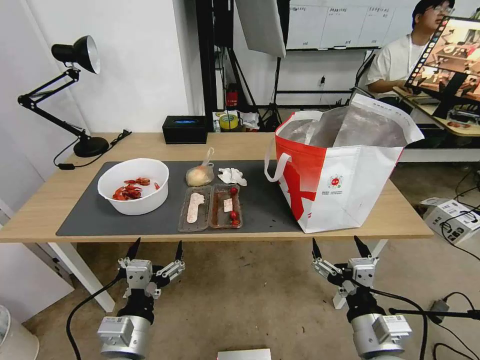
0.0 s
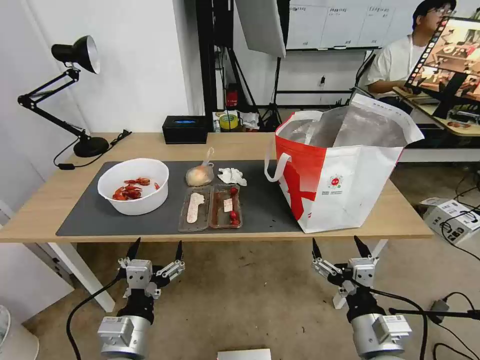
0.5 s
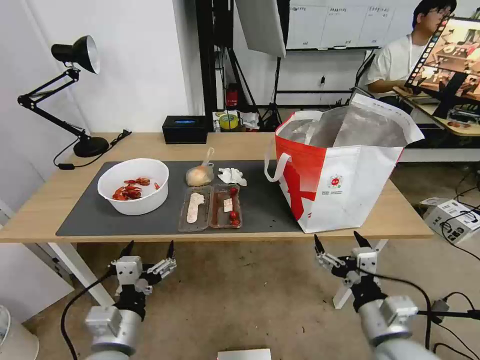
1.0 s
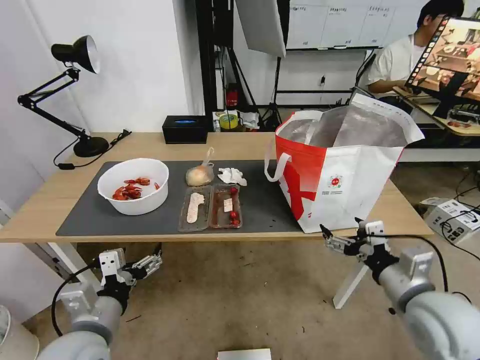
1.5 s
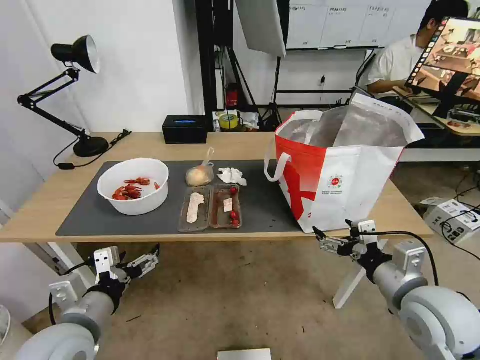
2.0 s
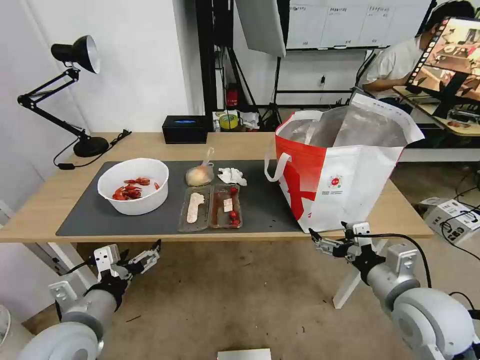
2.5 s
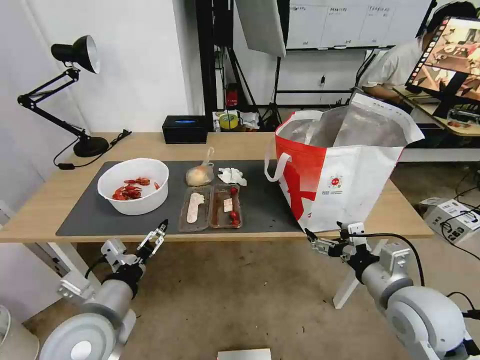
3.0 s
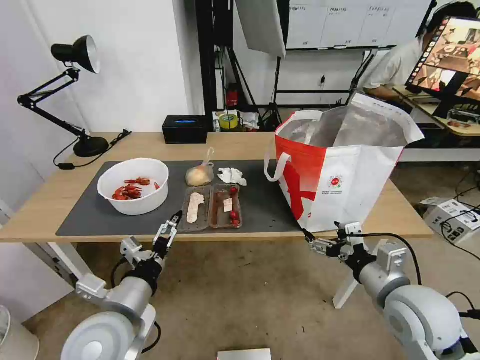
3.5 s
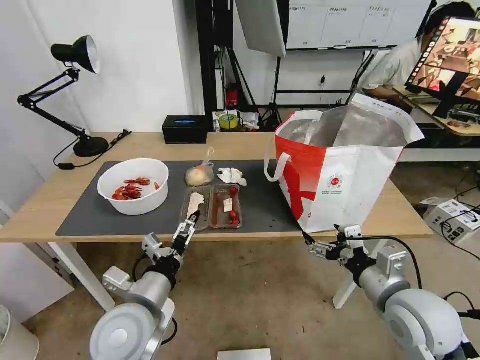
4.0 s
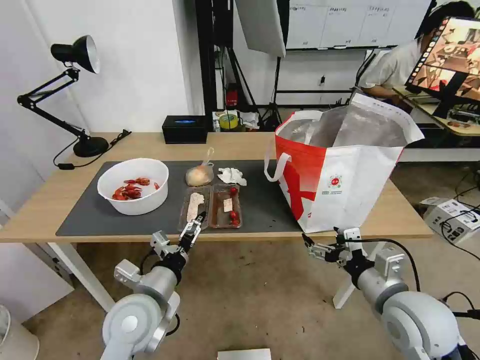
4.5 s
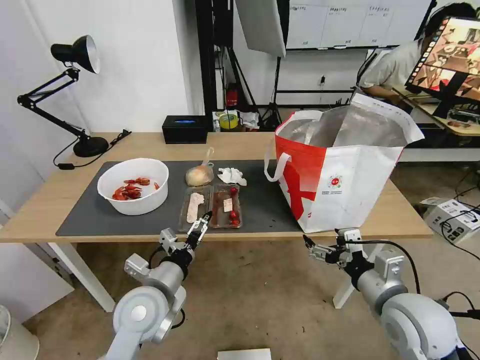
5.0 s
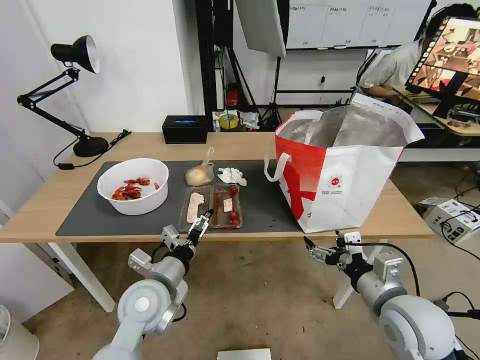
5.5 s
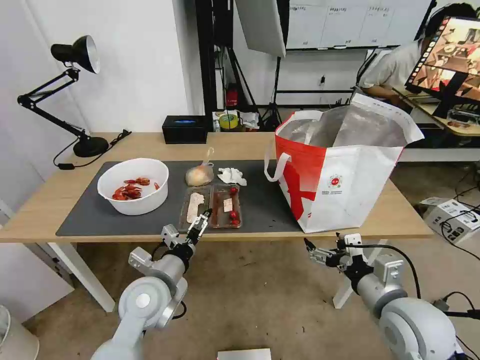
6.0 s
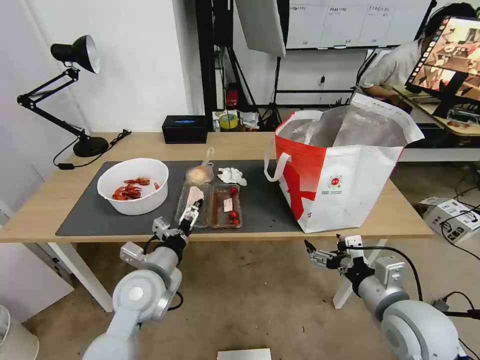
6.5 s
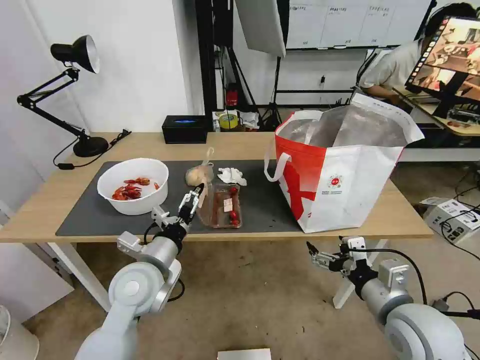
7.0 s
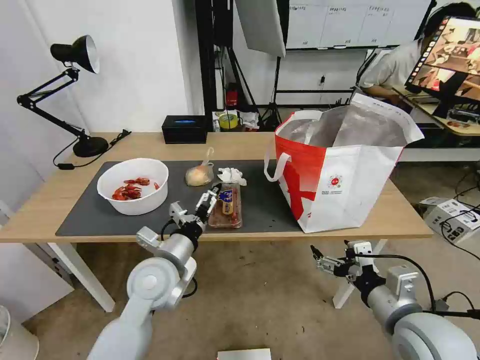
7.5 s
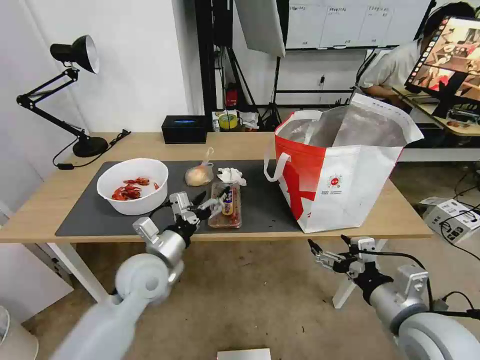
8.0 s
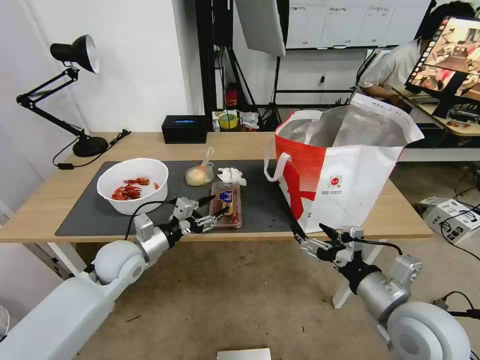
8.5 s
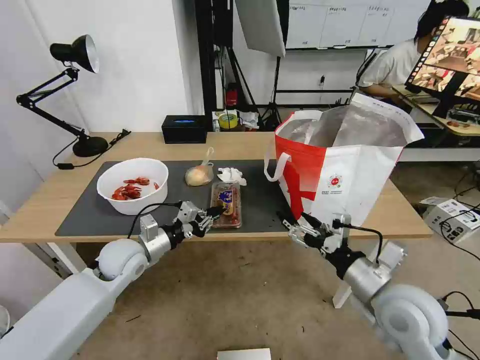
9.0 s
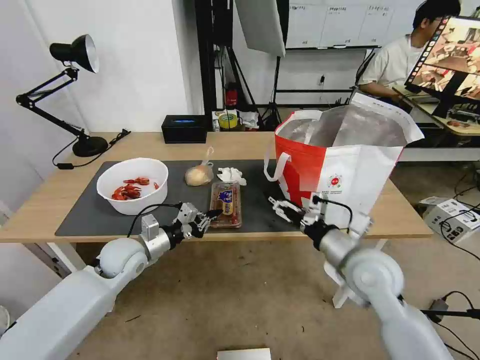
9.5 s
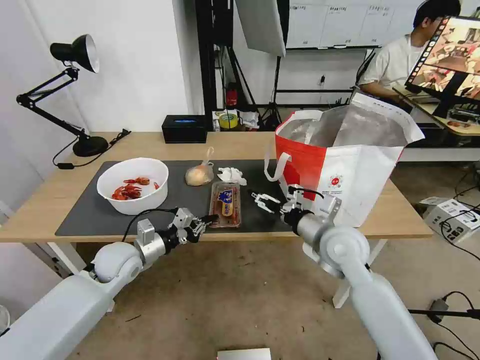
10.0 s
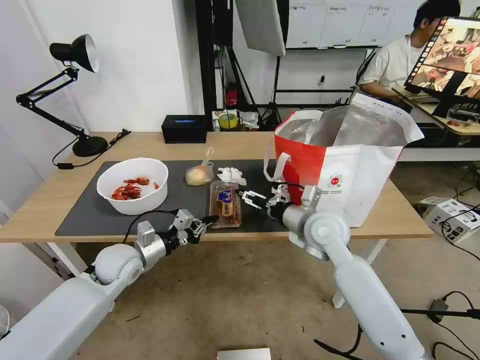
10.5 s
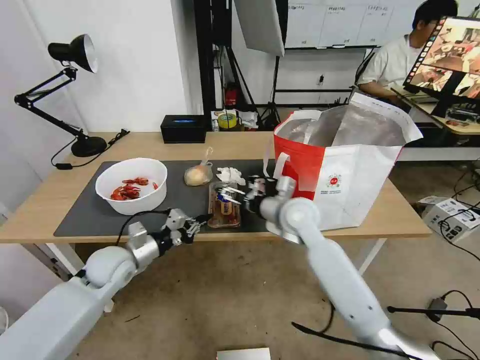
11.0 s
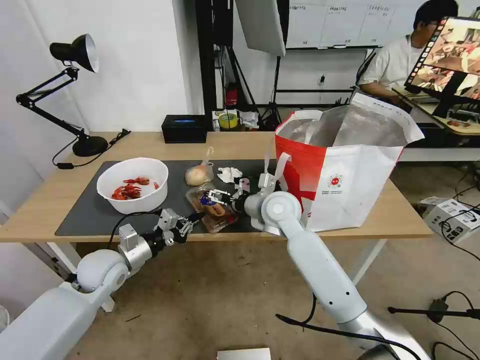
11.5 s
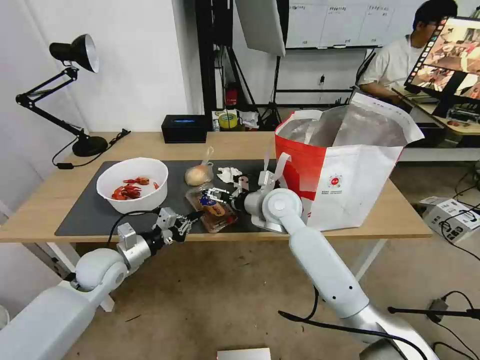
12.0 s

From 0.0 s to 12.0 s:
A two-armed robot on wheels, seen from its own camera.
Task of the whole recording: Pick up the trash from the table and place it into the takeout bag.
From 2.0 s to 4.0 s: The left gripper travels to the right by about 10 cm.
From 4.0 s to 6.0 s: The left gripper moves forward, roughly 5 cm.
From 8.0 s to 10.0 s: The left gripper heads to the left and forward, covering approximately 10 cm, and closes its fingers. Meanwhile the right gripper goes approximately 20 cm forward and to the left.
From 10.0 s to 12.0 s: The right gripper travels to the left and forward by approximately 15 cm.

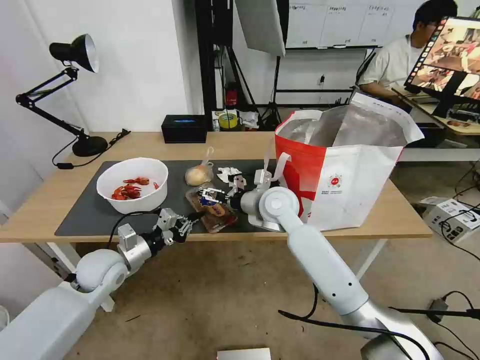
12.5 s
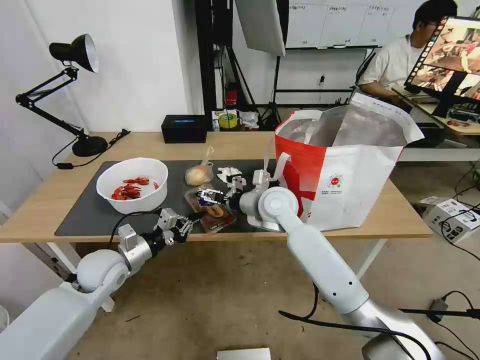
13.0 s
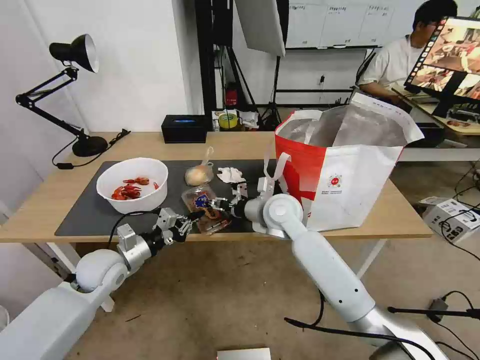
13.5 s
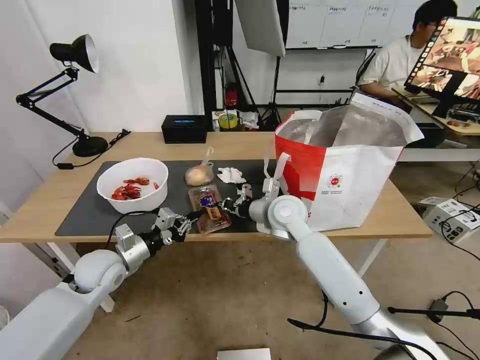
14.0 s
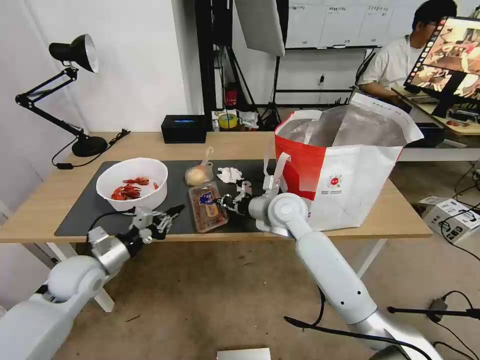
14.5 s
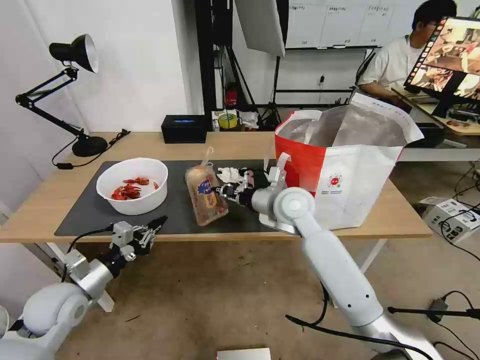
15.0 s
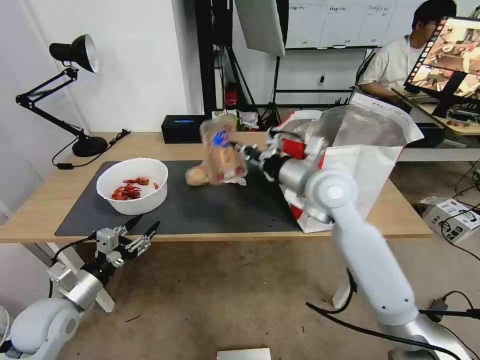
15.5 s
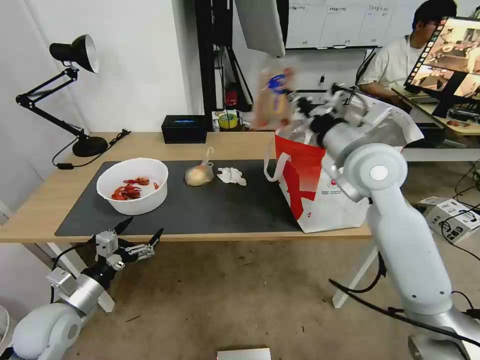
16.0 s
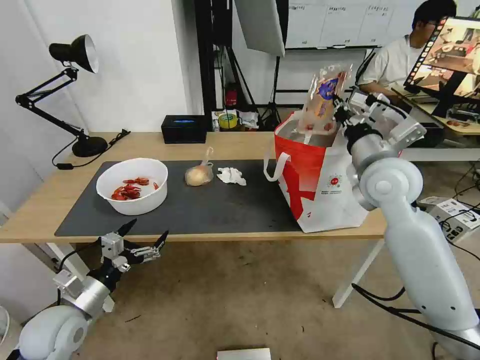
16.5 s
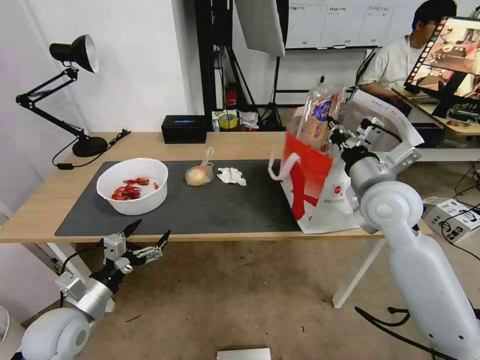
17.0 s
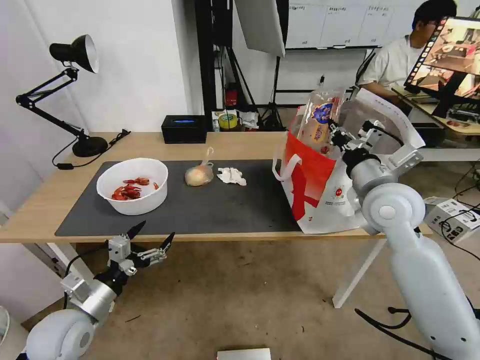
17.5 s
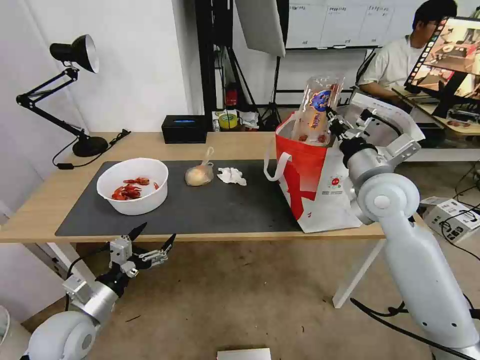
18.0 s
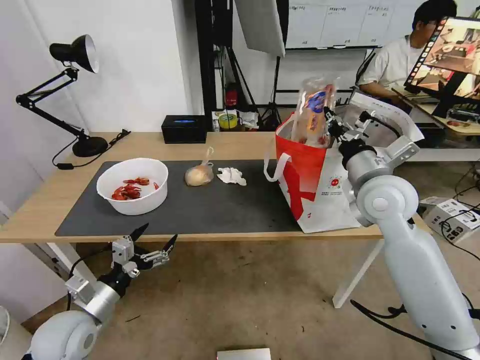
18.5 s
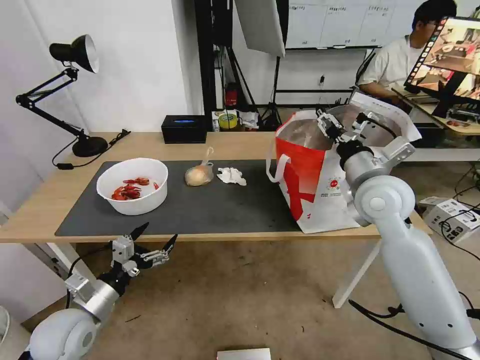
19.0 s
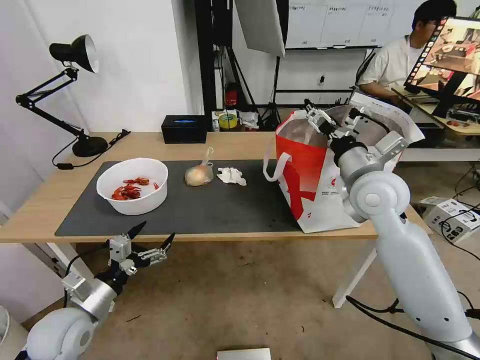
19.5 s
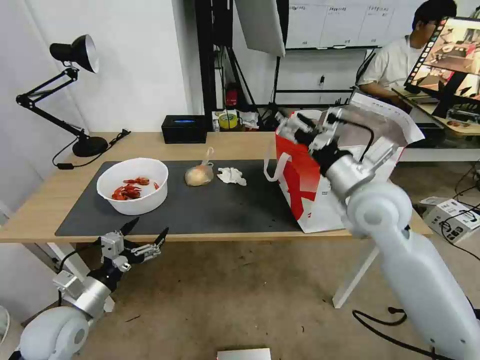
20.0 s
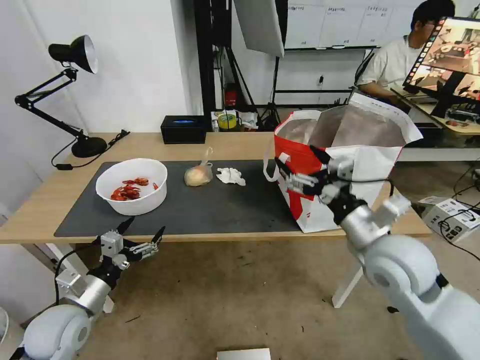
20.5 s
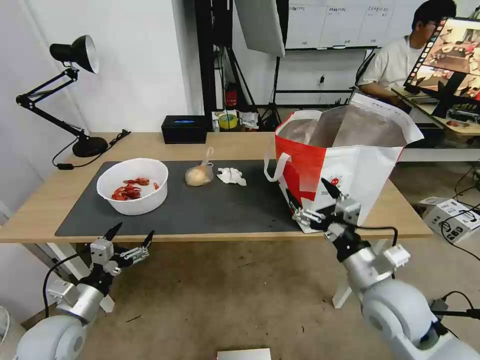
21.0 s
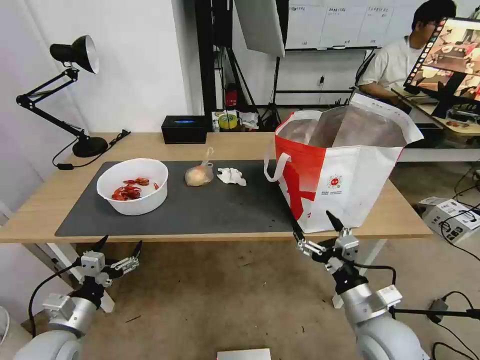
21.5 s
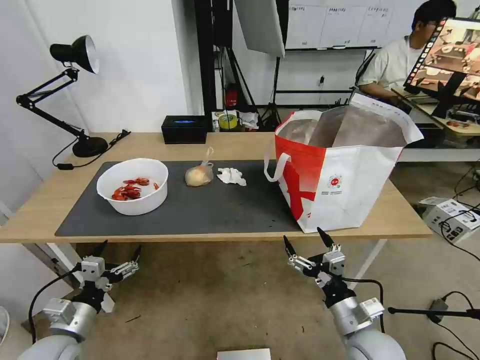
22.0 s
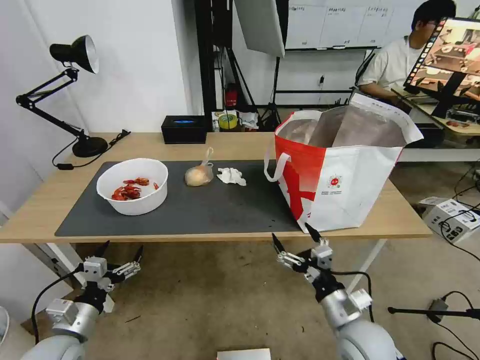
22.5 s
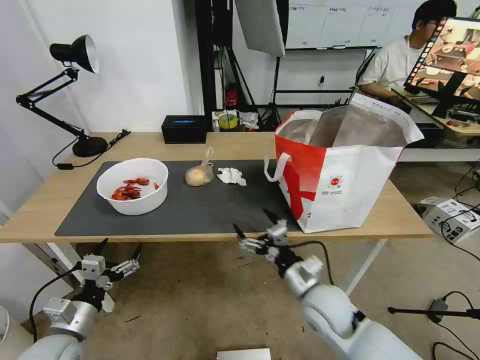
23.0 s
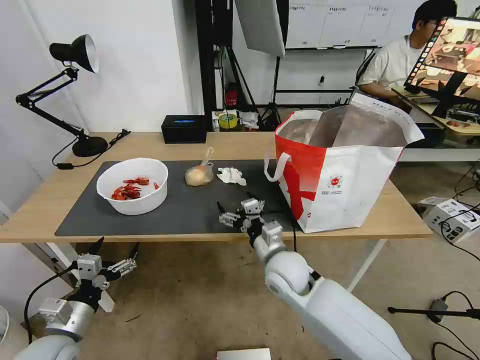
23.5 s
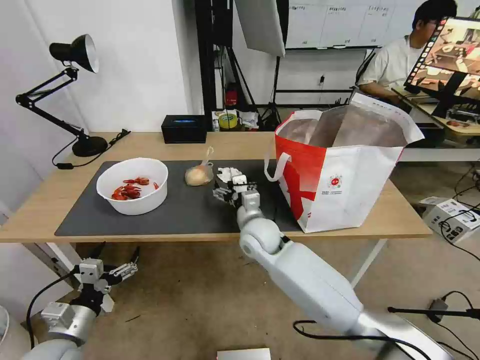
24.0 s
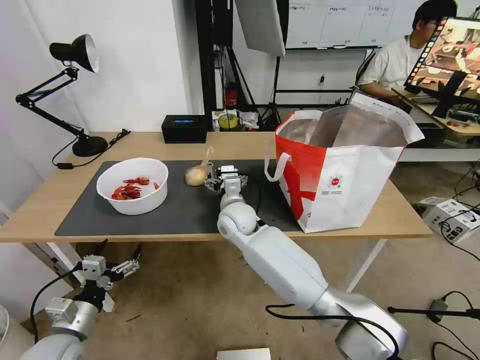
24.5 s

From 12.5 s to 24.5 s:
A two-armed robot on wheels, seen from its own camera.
Task of the whole recording: Pick up the trash from the table and place it into the takeout bag.
From 12.5 s to 14.5 s: The left gripper shifts by approximately 5 cm, while the right gripper closes.
From 14.5 s to 16.5 s: The left gripper is displaced backward by about 10 cm, and opens, while the right gripper is displaced to the right and upward by roughly 20 cm.
From 16.5 s to 18.5 s: The grippers stay close to where they were, moving slightly.
From 18.5 s to 20.5 s: The right gripper is displaced backward by roughly 10 cm, and opens its fingers.
From 20.5 s to 22.5 s: The left gripper changes place by roughly 5 cm. Meanwhile the right gripper shifts some 20 cm downward and backward.
From 22.5 s to 24.5 s: The right gripper is displaced forward and to the left by about 35 cm.

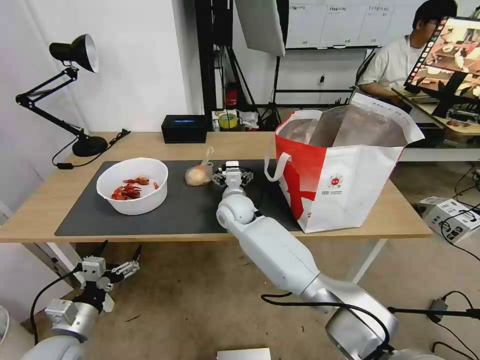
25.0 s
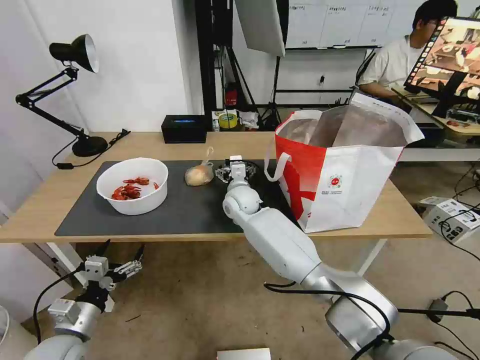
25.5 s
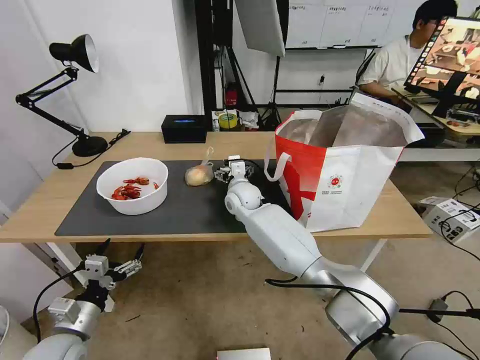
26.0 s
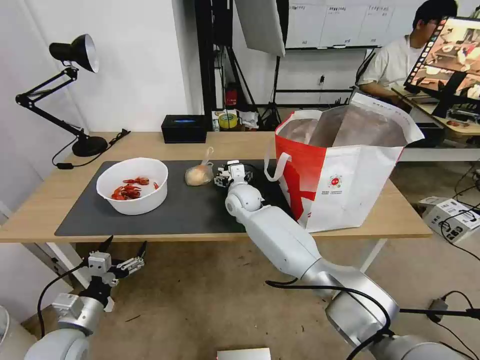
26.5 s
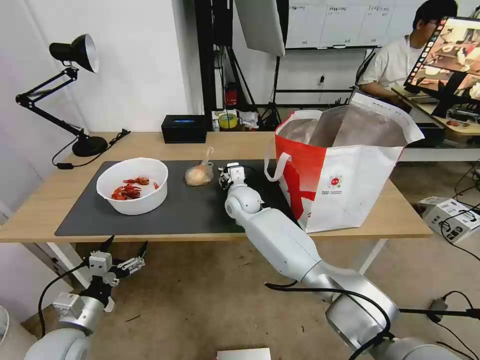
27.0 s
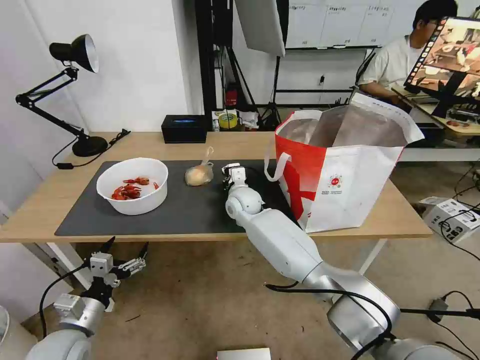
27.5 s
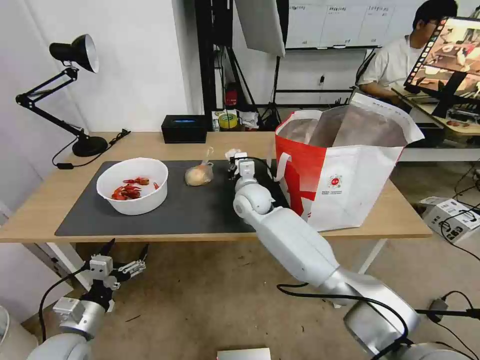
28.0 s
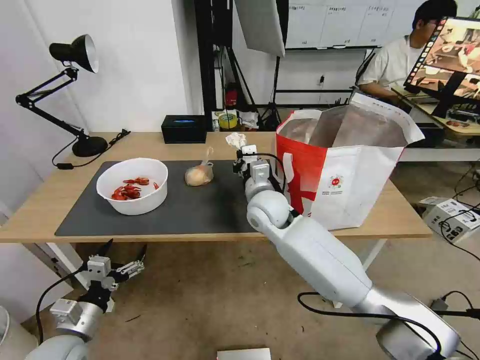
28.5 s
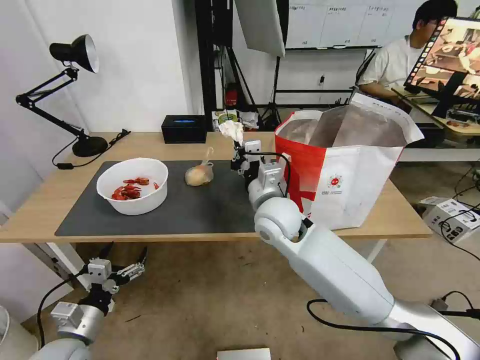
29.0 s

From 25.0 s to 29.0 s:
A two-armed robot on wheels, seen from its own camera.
Task of the whole recording: Pick up the trash from the table and place it into the takeout bag.
From 25.0 s to 27.0 s: The grippers stay close to where they were, moving slightly.
From 27.0 s to 29.0 s: The right gripper travels backward, upward and to the right by roughly 15 cm, and closes up.
